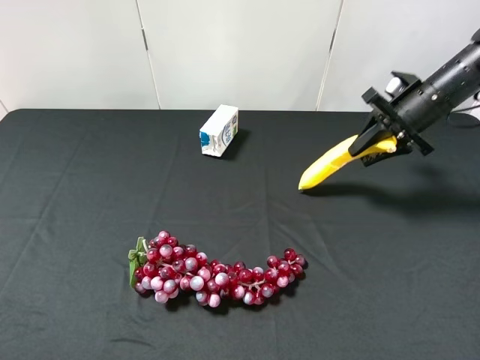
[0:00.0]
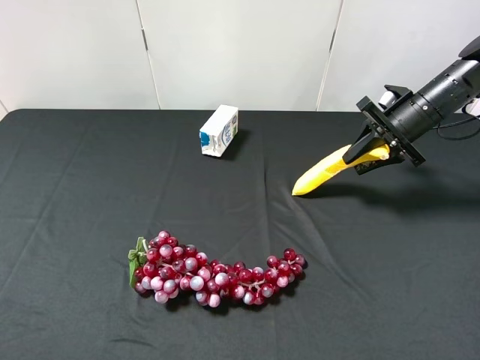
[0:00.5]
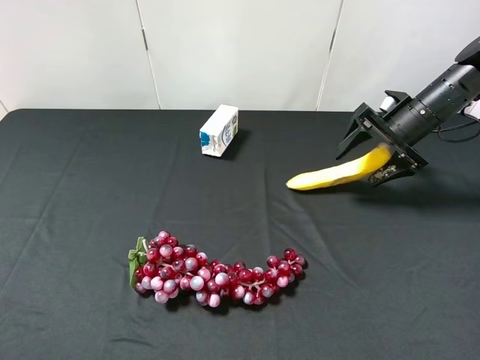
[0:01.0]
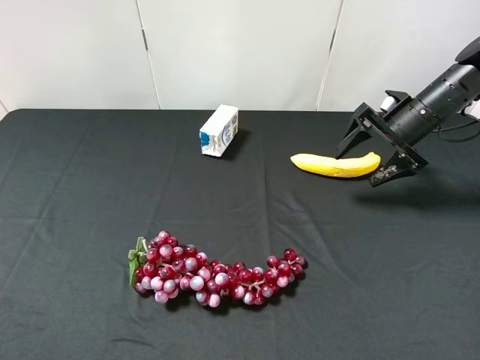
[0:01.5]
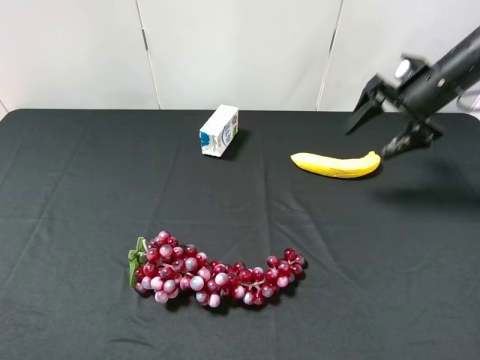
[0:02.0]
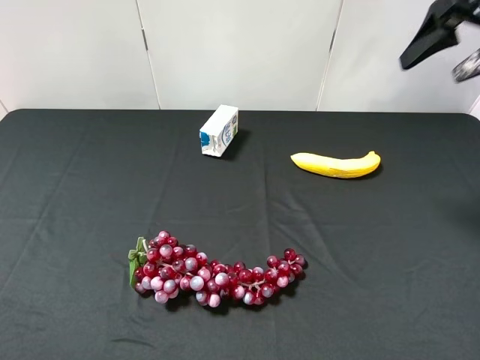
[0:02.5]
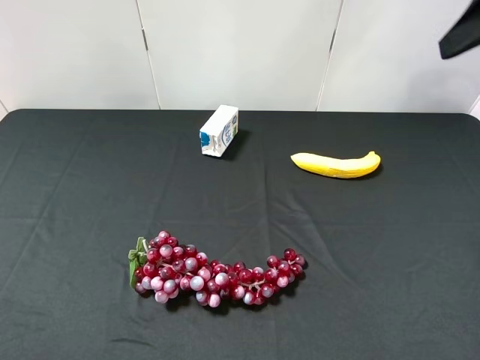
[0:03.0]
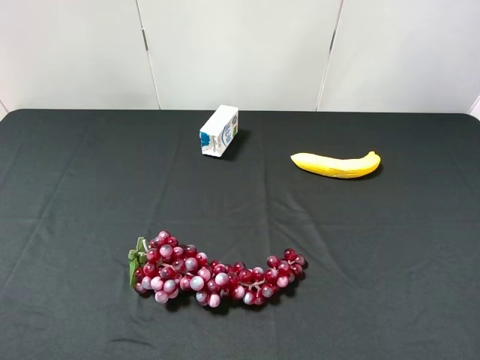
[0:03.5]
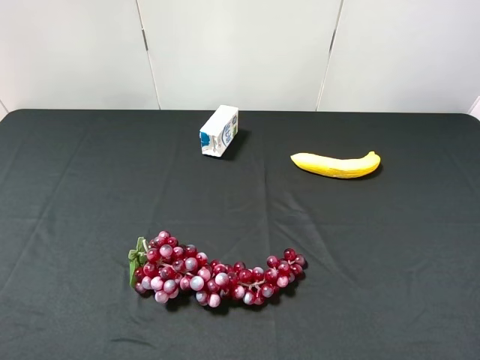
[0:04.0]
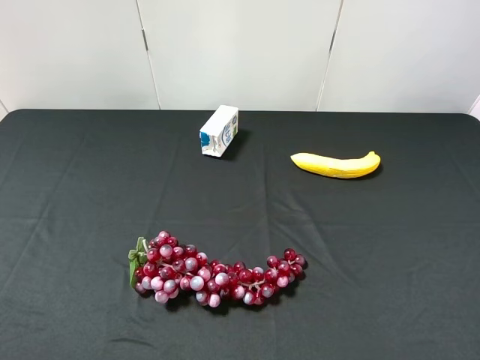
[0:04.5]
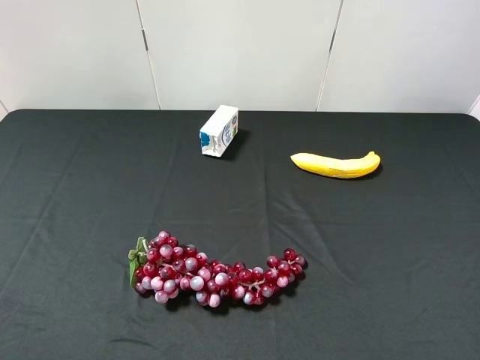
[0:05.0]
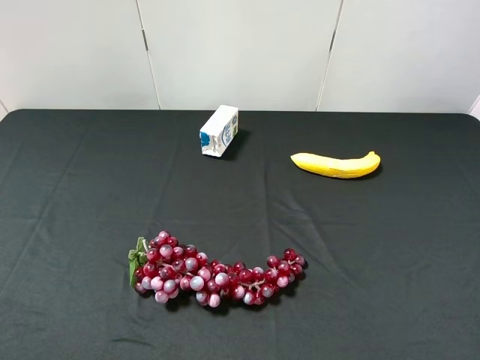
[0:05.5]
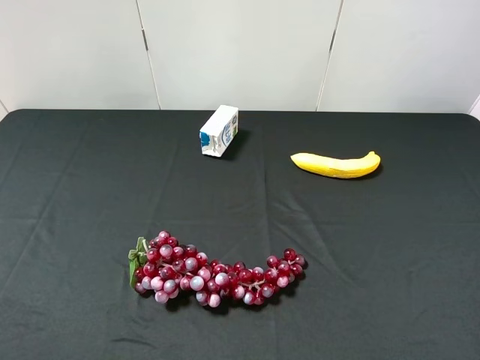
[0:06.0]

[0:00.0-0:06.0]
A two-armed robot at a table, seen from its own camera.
Task of the whole recording: use the left gripper to pick up the item and transfer it from the left gripper to the right gripper.
0:00.0 to 0:02.0: The right gripper opens its fingers.
0:02.0 to 0:04.0: The right gripper shifts some 35 cm backward.
